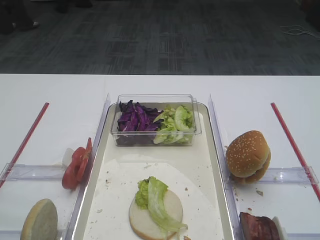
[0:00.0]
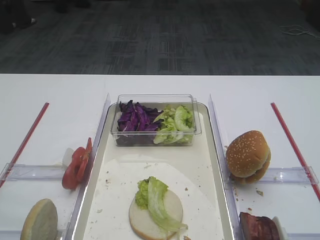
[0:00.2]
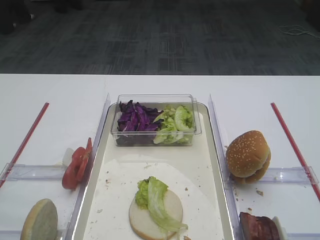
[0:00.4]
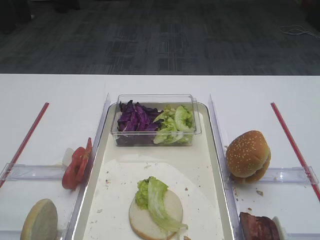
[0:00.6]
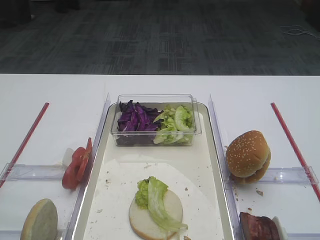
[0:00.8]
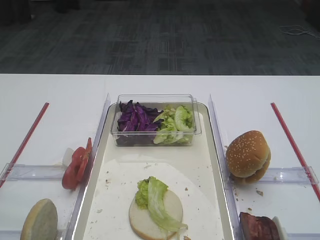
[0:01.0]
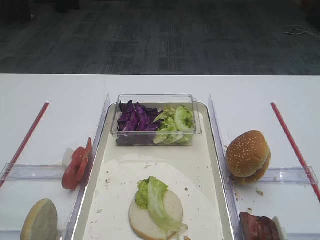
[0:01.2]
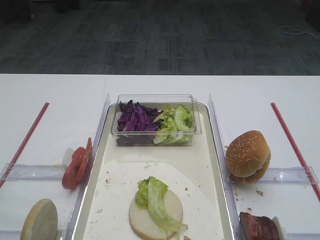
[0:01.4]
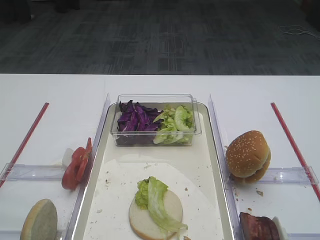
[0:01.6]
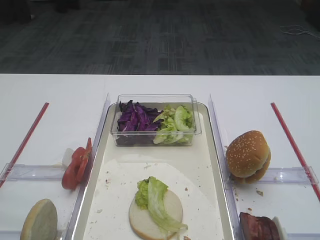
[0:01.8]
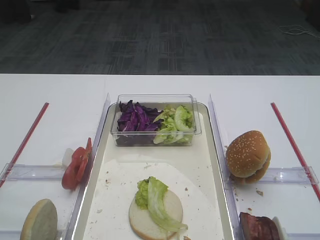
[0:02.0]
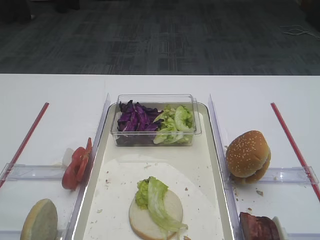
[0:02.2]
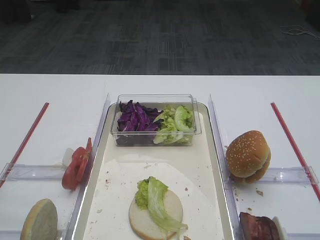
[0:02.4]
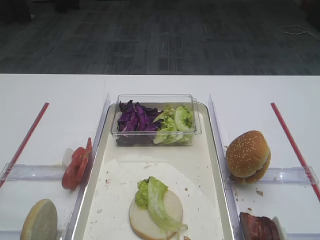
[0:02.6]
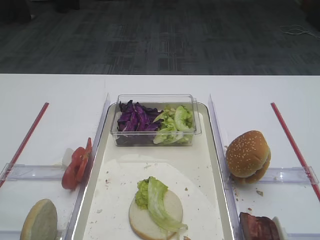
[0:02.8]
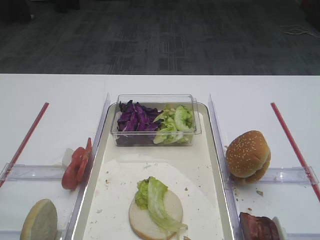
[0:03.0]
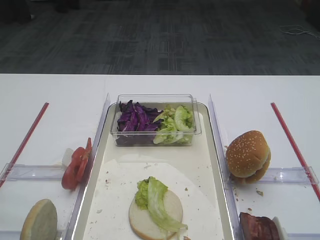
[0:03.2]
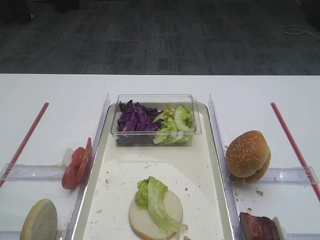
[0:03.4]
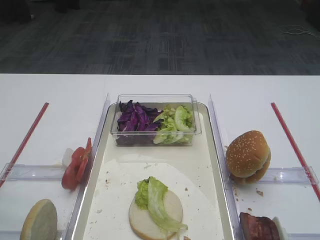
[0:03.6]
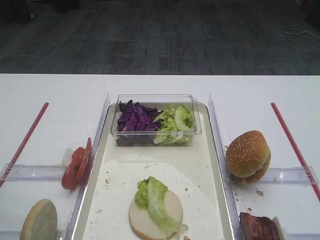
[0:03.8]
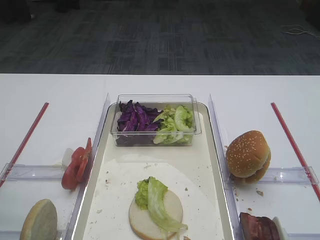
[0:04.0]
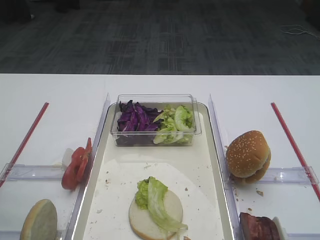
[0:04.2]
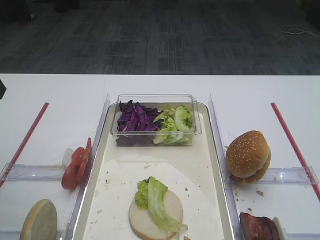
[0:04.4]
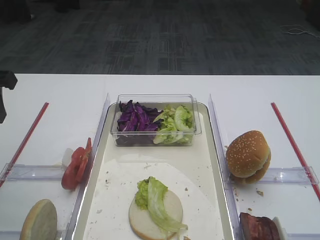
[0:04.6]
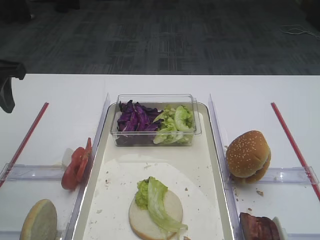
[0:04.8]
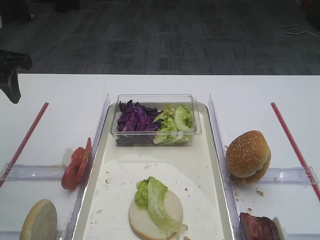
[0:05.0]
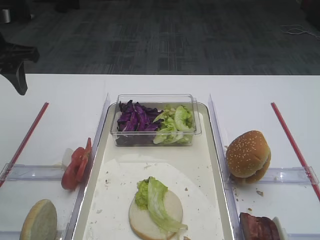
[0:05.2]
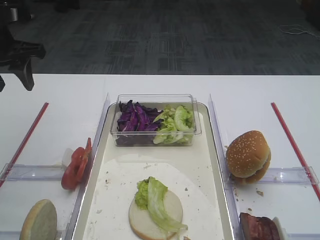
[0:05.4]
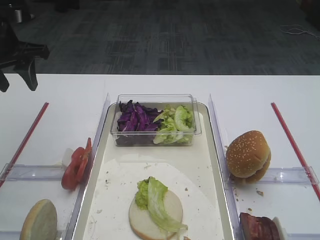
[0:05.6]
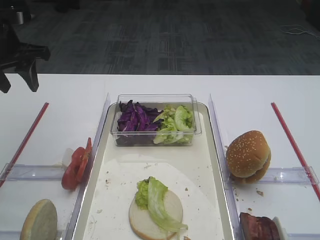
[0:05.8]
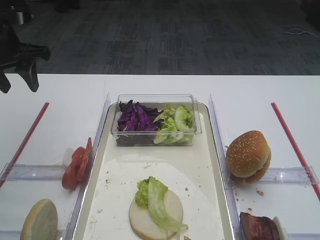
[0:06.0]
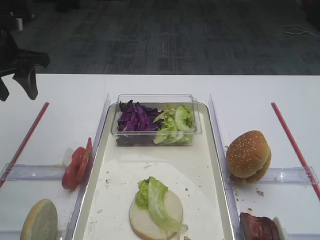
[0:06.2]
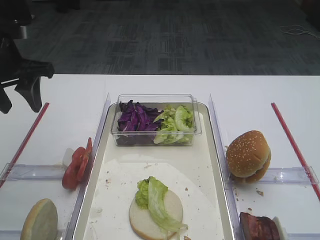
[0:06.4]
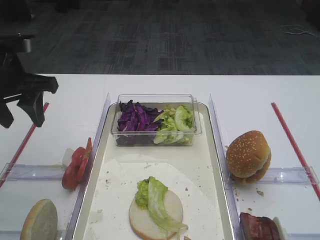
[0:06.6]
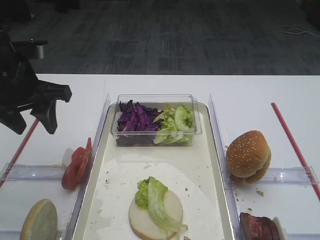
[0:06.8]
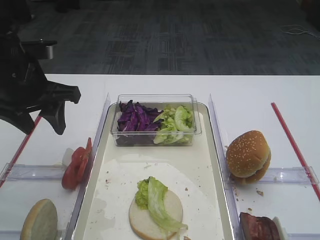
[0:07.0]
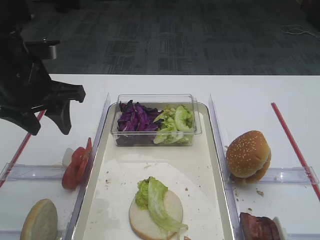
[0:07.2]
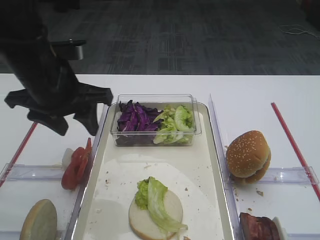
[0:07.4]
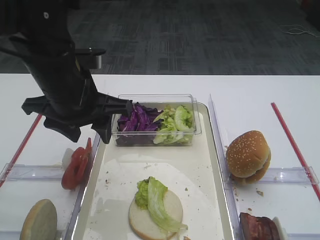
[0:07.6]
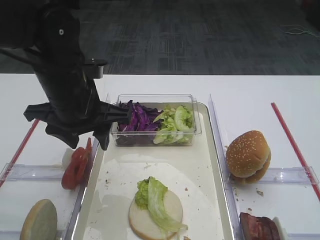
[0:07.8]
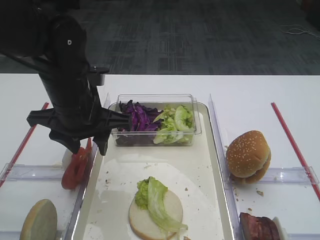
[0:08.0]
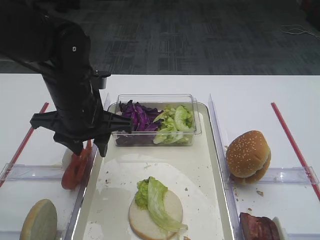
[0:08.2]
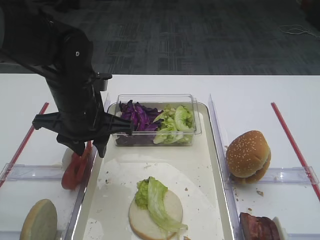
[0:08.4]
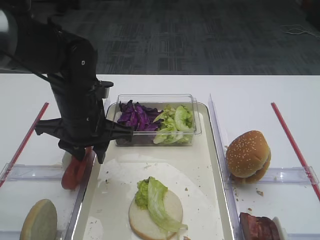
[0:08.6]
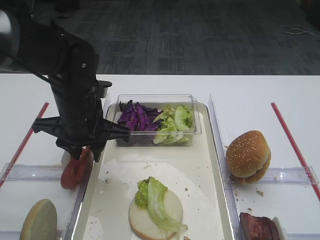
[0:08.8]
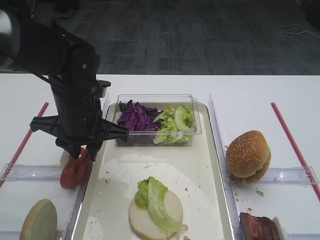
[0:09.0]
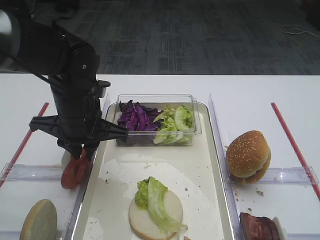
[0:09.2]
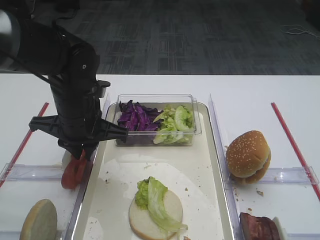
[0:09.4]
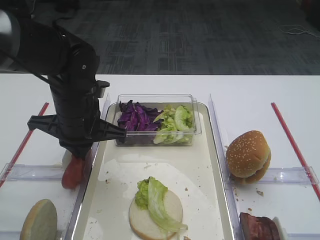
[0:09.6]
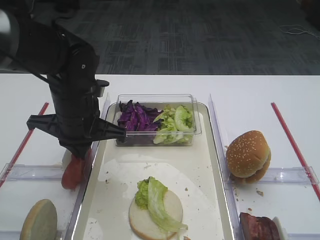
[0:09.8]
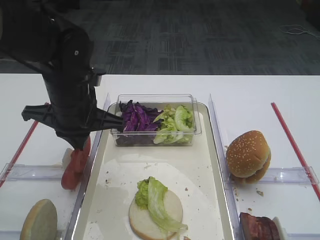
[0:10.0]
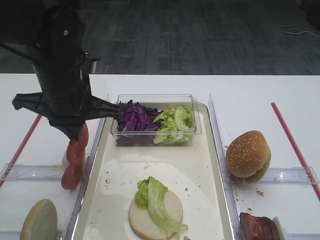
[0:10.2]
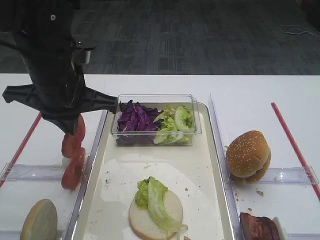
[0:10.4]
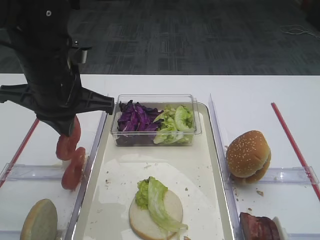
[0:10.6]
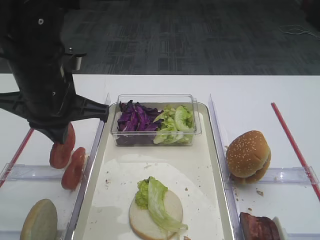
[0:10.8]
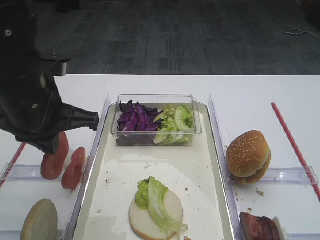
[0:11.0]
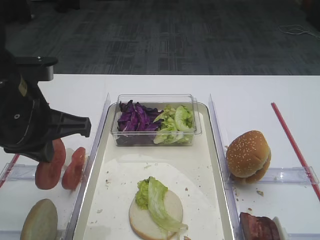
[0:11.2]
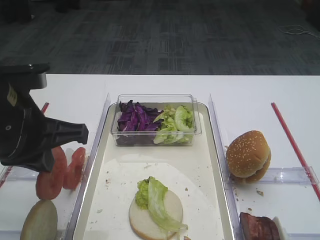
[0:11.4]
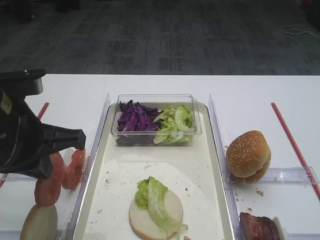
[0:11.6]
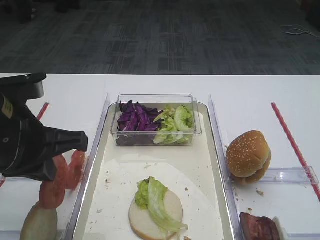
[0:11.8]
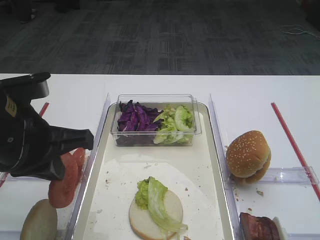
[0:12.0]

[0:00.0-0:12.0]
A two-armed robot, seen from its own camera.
Step, 0:00.0 to 0:10.2: Pick up the tomato slice with the left gripper.
0:04.4 to 0:06.0: The left gripper goes roughly 15 cm forward.
0:06.0 to 0:07.6: The left gripper goes roughly 20 cm to the right and backward.
0:07.6 to 0:09.0: The left gripper heads downward, covering about 5 cm, and closes.
0:09.0 to 0:10.4: The left gripper heads upward, covering about 5 cm, and closes its fingers.
0:10.4 to 0:12.0: The left gripper moves backward, roughly 10 cm.

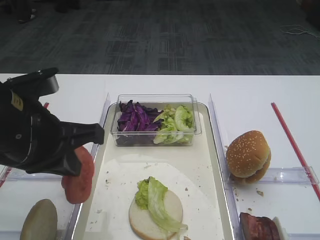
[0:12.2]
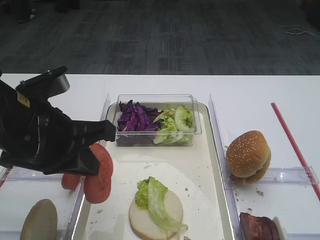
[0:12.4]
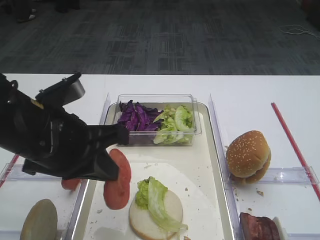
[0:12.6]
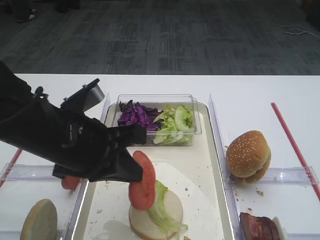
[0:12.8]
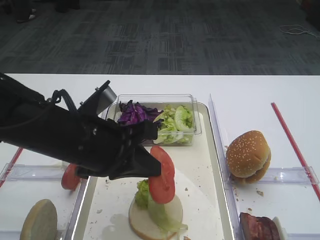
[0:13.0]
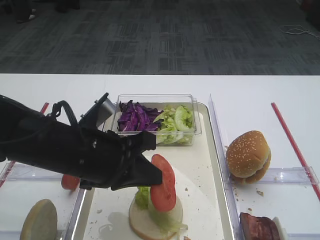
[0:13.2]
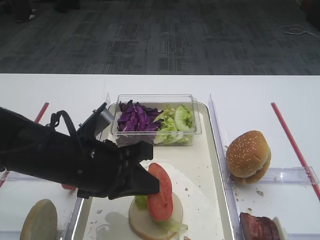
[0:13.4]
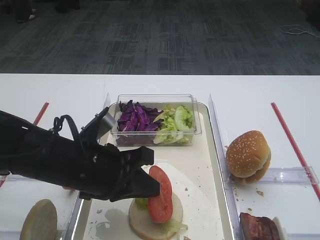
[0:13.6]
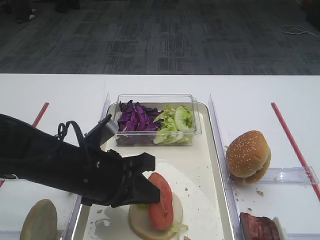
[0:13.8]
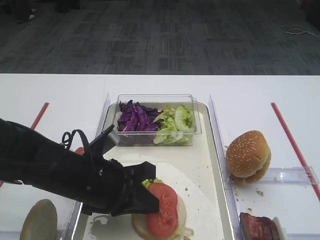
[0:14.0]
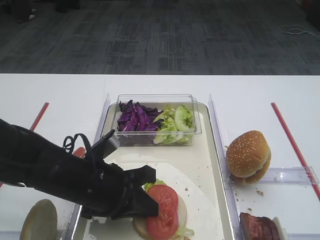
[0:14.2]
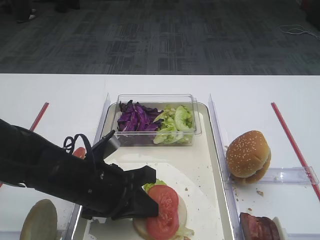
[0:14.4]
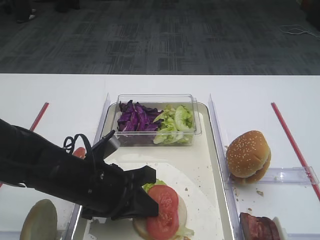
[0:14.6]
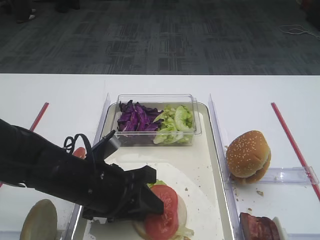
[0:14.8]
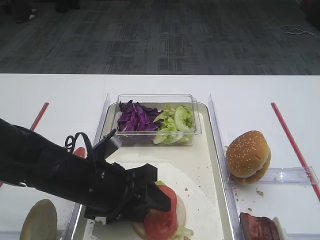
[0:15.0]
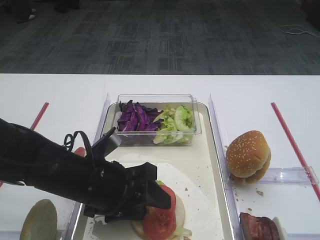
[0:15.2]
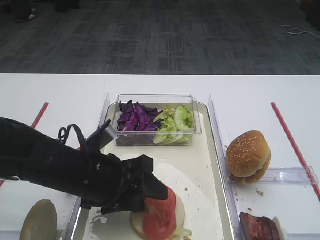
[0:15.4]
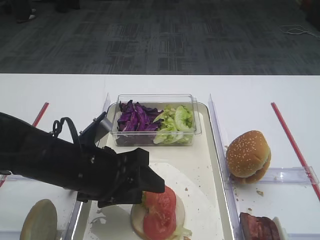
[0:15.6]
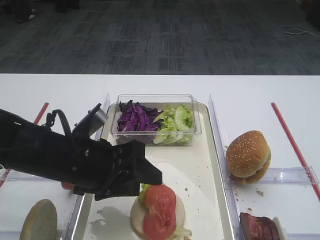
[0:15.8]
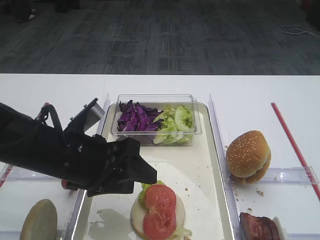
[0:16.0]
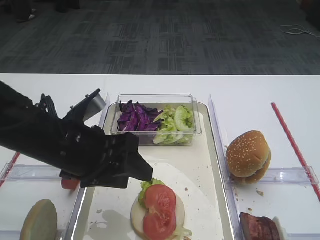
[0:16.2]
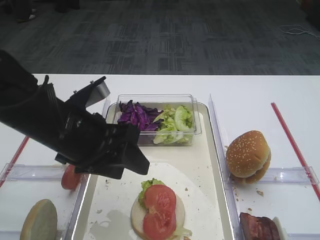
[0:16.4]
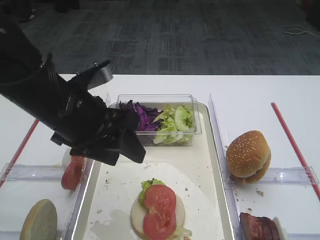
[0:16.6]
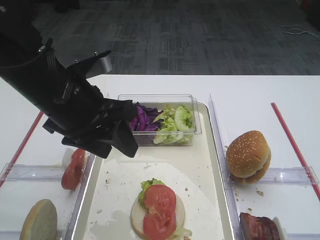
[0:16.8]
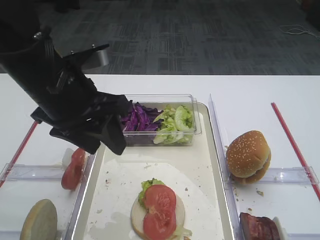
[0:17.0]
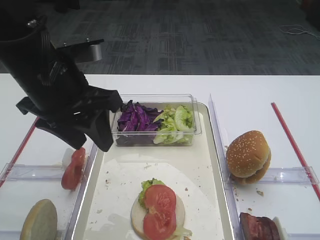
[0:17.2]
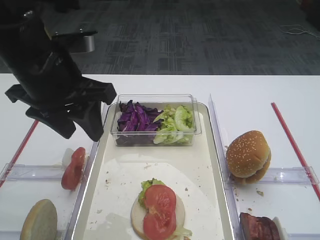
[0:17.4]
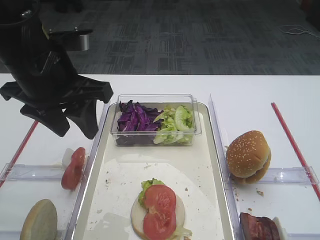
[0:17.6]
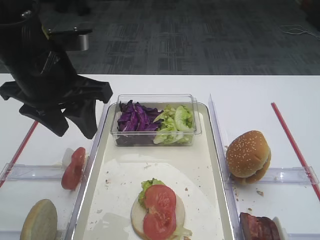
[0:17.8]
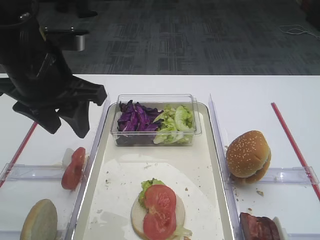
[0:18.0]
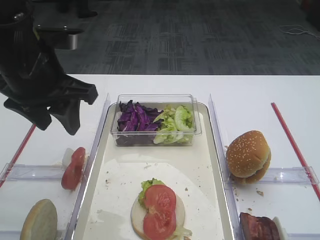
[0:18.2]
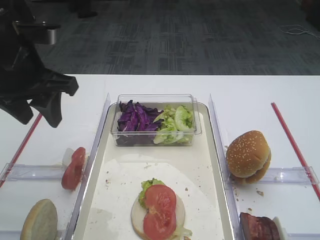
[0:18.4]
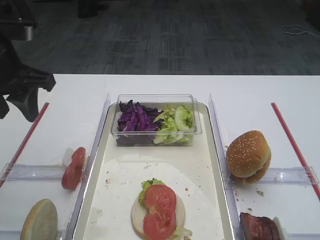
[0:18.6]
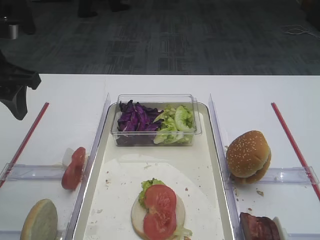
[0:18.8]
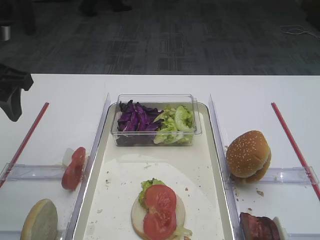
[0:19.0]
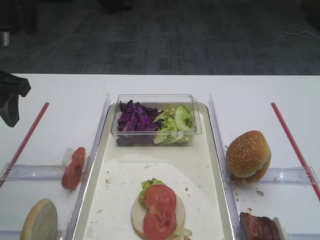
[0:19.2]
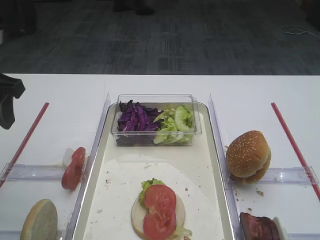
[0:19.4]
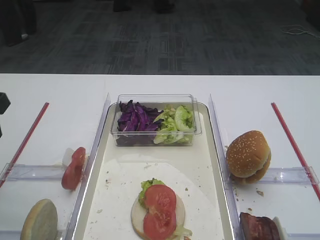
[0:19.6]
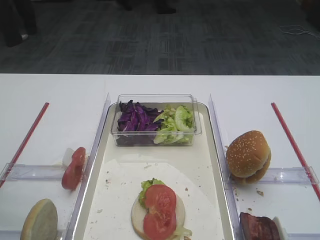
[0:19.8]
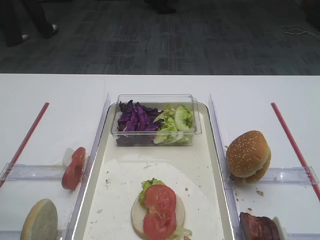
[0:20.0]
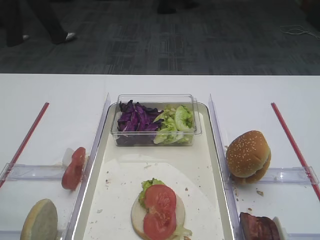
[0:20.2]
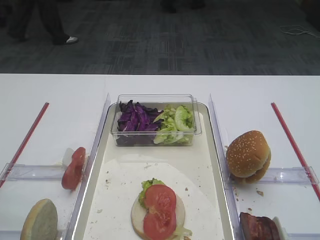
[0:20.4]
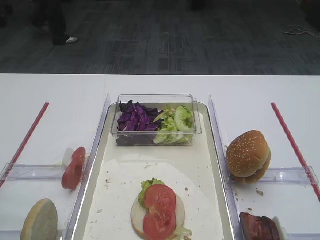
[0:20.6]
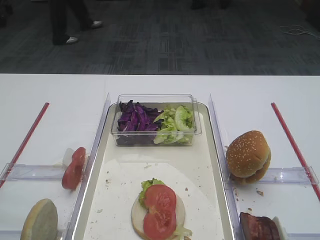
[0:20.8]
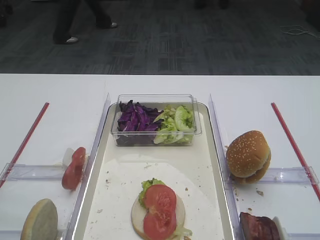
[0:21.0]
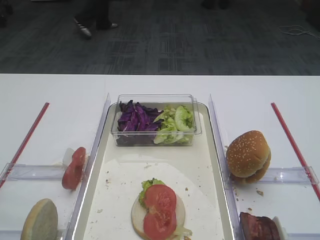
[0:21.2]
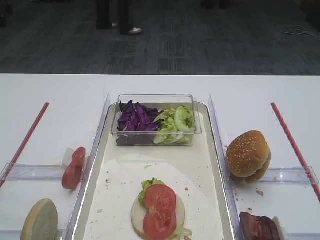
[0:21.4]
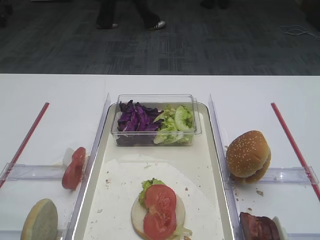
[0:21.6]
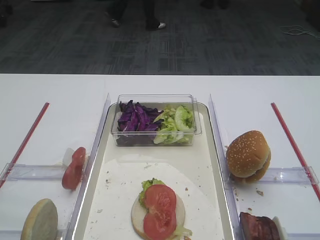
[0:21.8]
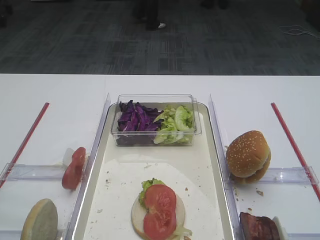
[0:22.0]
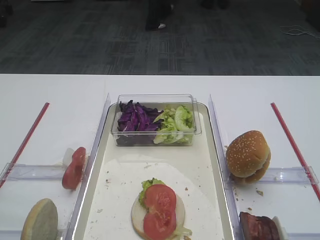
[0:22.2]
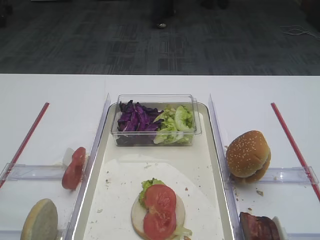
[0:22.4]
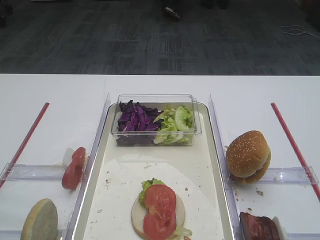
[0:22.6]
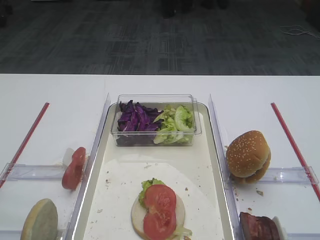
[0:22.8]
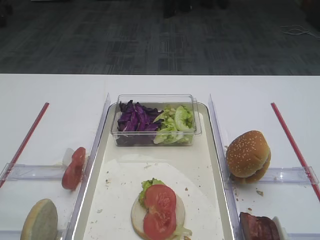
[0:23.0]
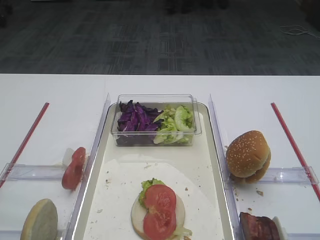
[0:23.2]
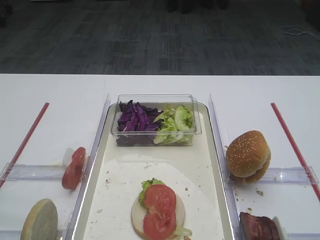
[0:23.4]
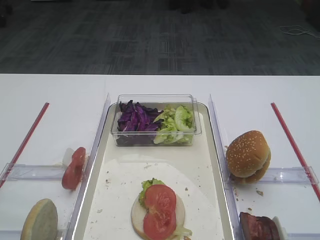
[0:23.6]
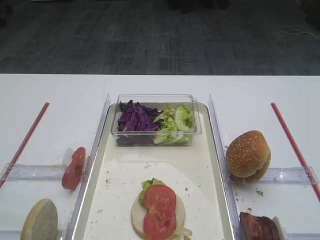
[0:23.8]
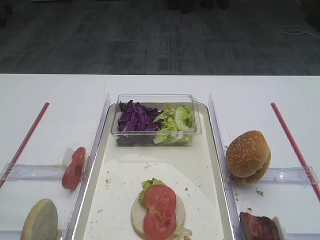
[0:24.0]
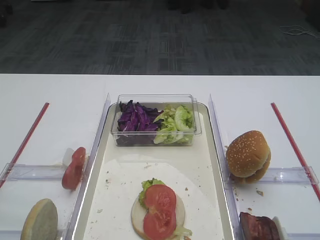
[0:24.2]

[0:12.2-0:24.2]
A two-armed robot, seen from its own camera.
Step, 0:12.2 to 0:15.8: Place the tomato slice on the lettuce leaf with the left gripper.
0:12.2 to 0:13.8: The left gripper heads downward and to the right, covering roughly 10 cm.
0:13.8 to 0:15.2: The left gripper opens.
0:15.2 to 0:16.6: The left gripper heads upward, covering approximately 10 cm.
0:16.6 to 0:18.2: The left gripper heads upward, covering roughly 5 cm, and closes and opens again.
0:18.2 to 0:19.8: The left gripper travels to the left and backward by about 15 cm.
0:19.8 to 0:21.2: The left gripper heads backward, covering some 15 cm.
0:22.6 to 0:24.2: The two grippers keep their place.
